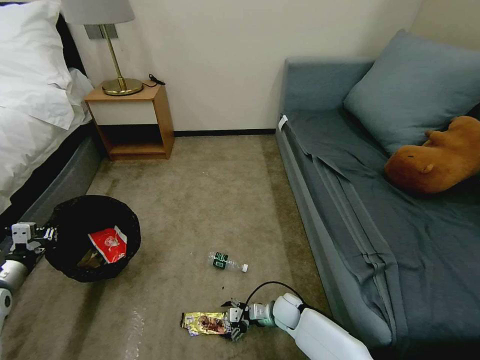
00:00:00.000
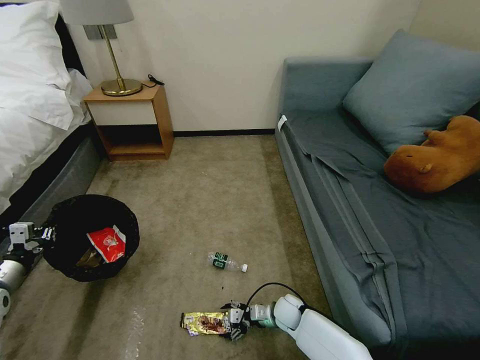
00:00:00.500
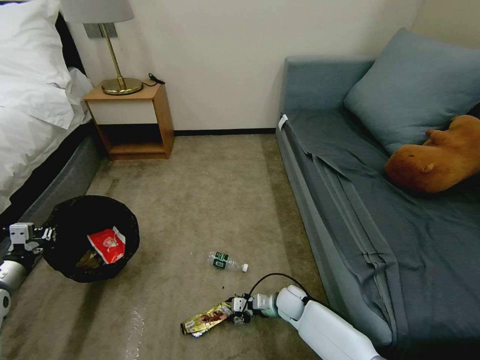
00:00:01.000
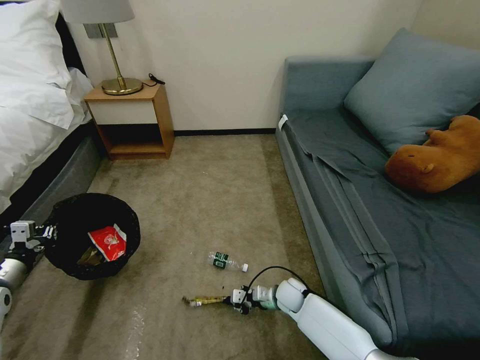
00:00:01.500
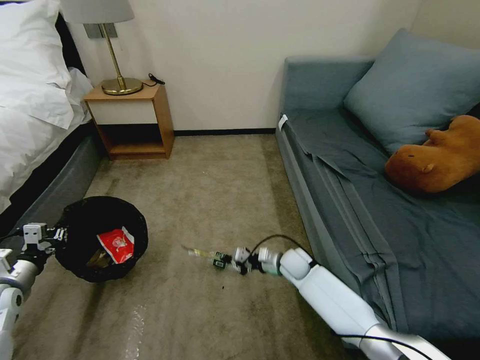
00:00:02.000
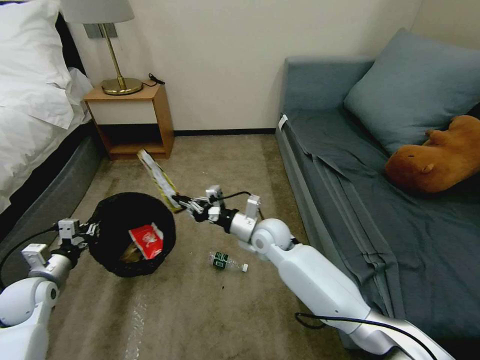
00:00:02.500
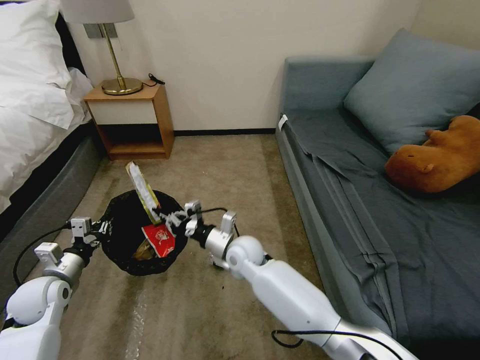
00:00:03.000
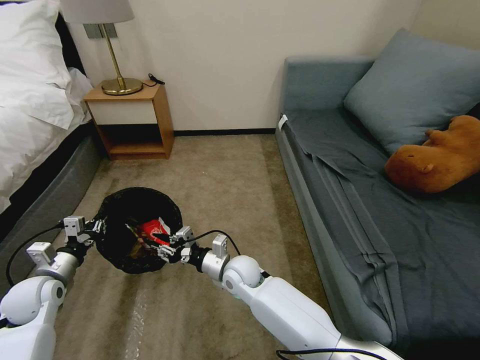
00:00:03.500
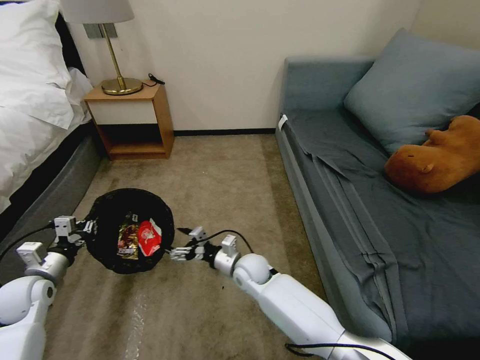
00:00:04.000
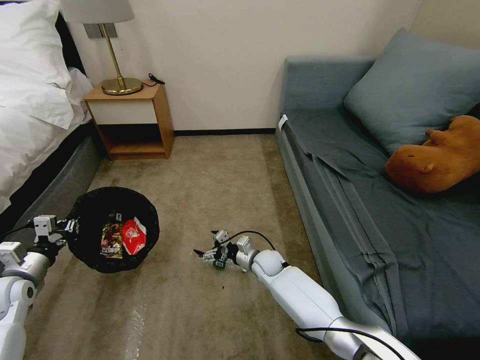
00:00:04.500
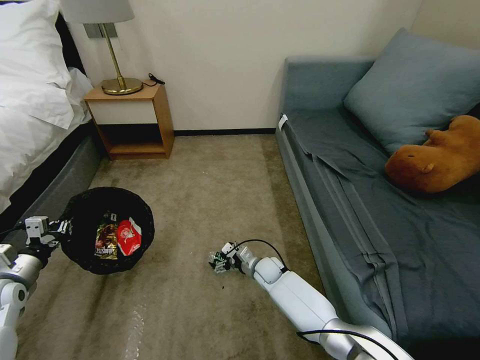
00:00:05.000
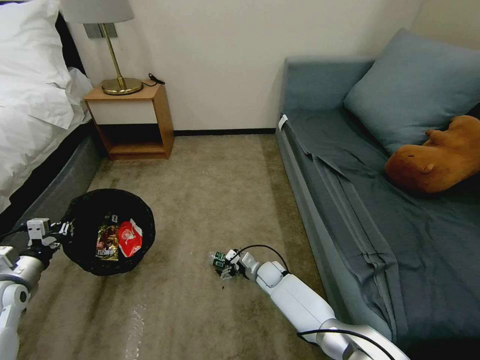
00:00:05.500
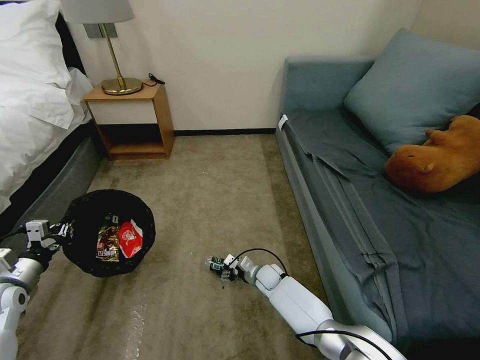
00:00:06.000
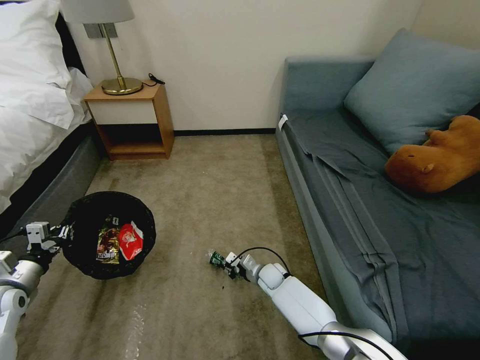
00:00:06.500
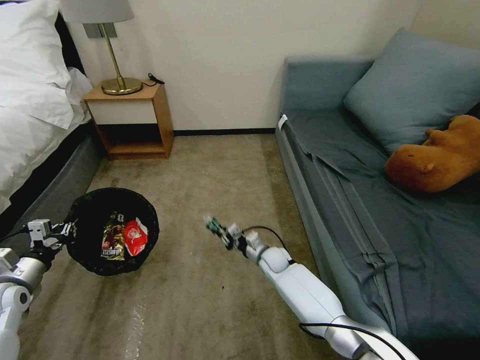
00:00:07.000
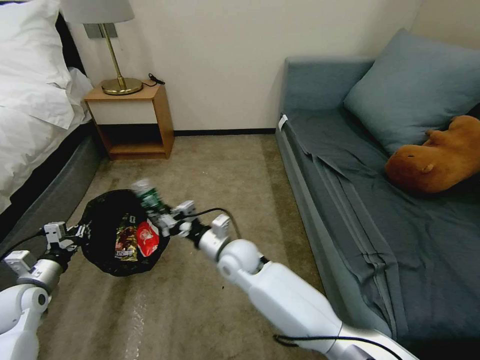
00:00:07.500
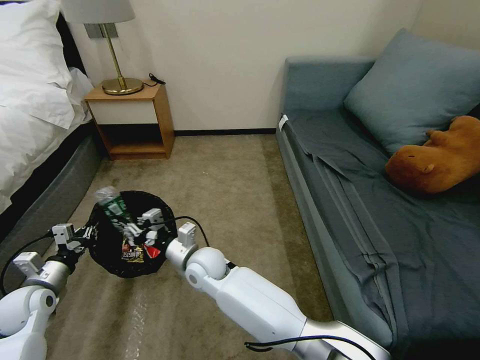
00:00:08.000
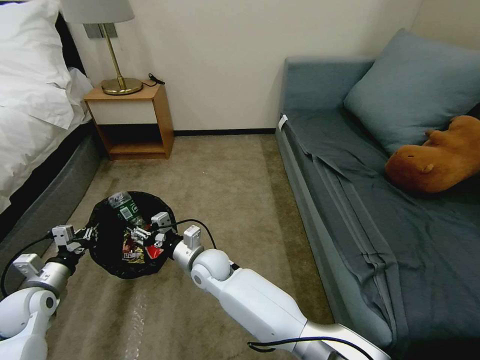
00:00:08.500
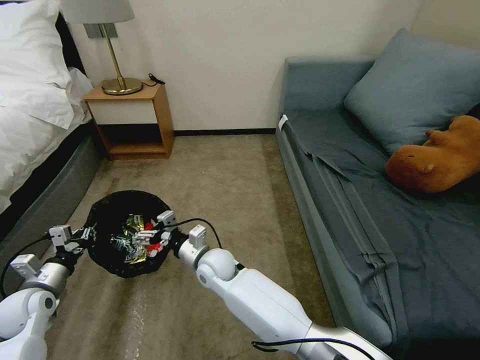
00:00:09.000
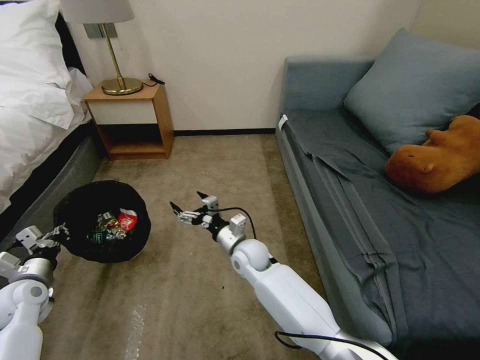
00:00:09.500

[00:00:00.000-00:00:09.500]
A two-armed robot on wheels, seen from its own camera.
Task of the whole recording: Pick up the trash bin, then pick up the garbage on the floor and place it into the trash bin.
00:00:00.000 to 00:00:02.000: The right gripper goes roughly 15 cm forward and upward, and closes.
00:00:02.000 to 00:00:04.000: The right gripper is displaced to the left by approximately 15 cm, and opens.
00:00:04.000 to 00:00:05.500: The right gripper shifts roughly 15 cm downward and to the right.
00:00:05.500 to 00:00:07.500: The right gripper is displaced upward and to the left by roughly 25 cm, and closes.
00:00:07.500 to 00:00:09.500: The right gripper reaches about 10 cm to the left, then returns, and opens its fingers.

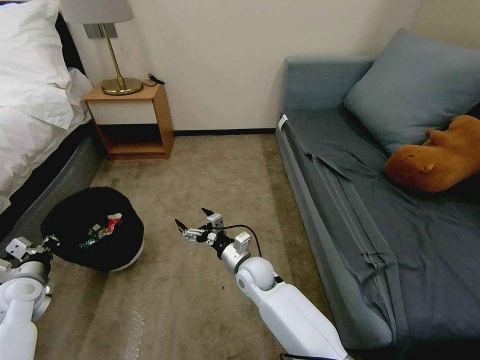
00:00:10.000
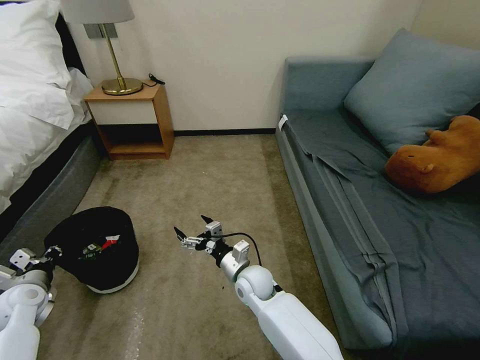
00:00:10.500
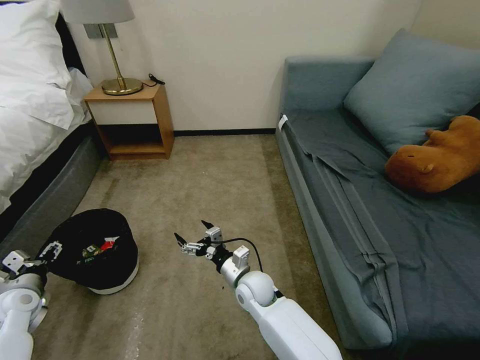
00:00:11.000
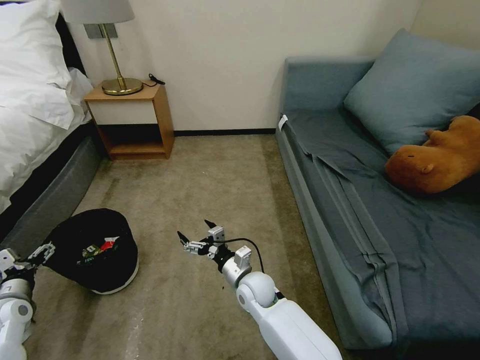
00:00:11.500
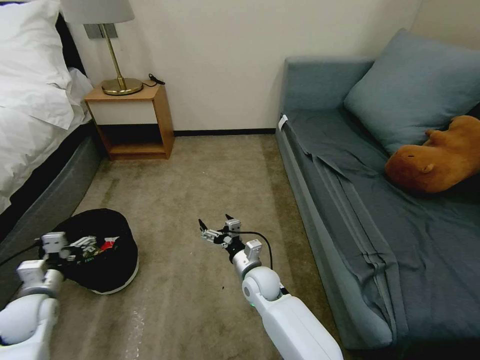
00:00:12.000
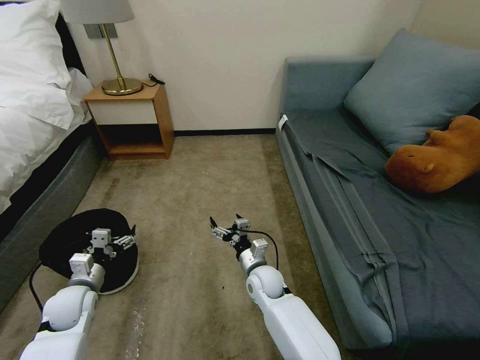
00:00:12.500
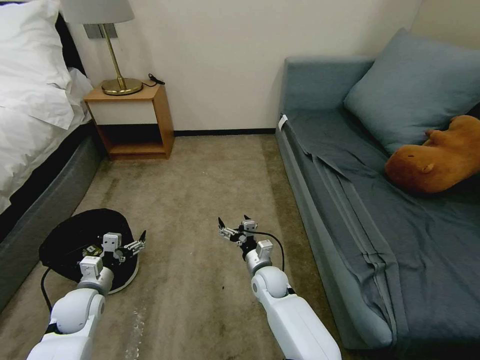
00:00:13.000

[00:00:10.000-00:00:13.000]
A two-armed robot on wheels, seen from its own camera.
Task of the whole recording: Pick up the trash bin, then pick up the garbage on the floor and place it into the trash bin.
00:00:10.000 to 00:00:11.500: The left gripper opens.
00:00:11.500 to 00:00:13.000: The left gripper goes about 15 cm to the right, while the right gripper changes place by about 5 cm.

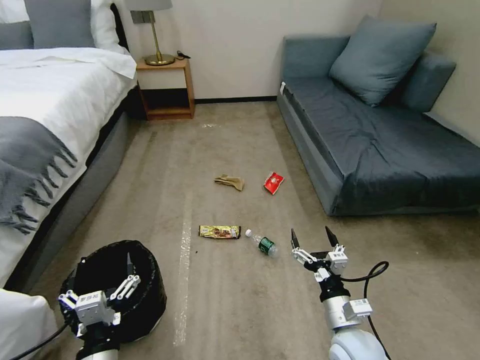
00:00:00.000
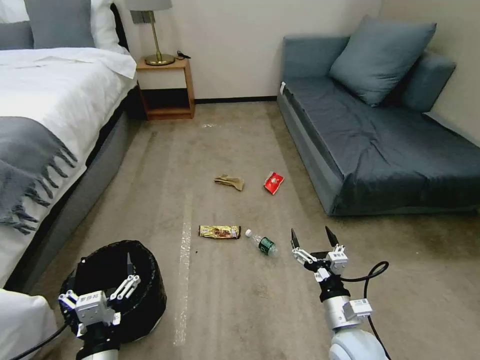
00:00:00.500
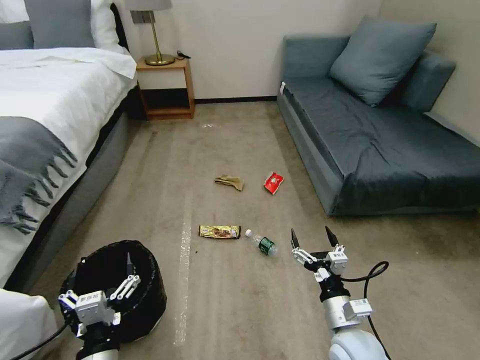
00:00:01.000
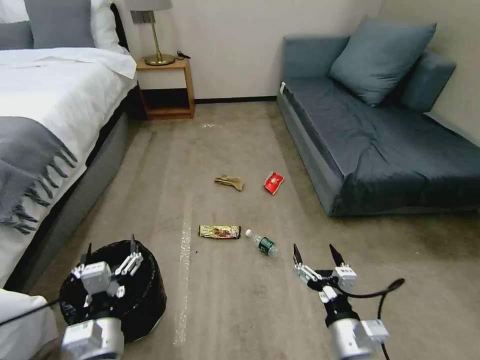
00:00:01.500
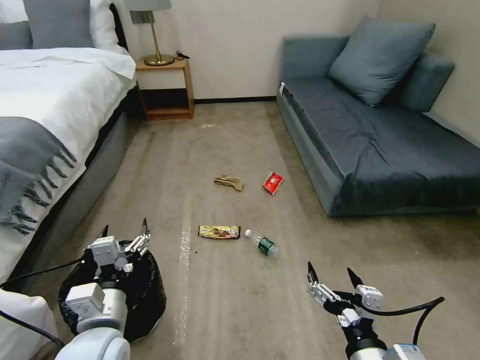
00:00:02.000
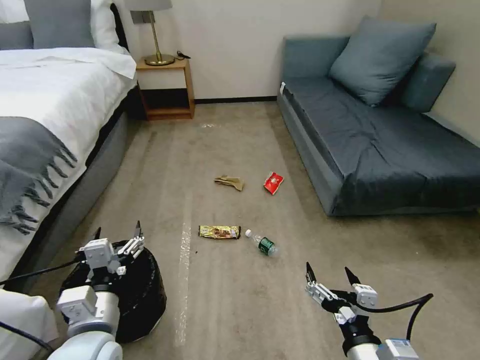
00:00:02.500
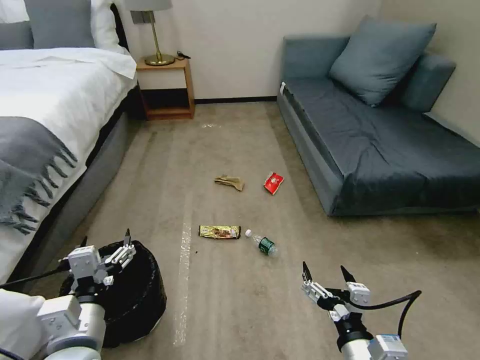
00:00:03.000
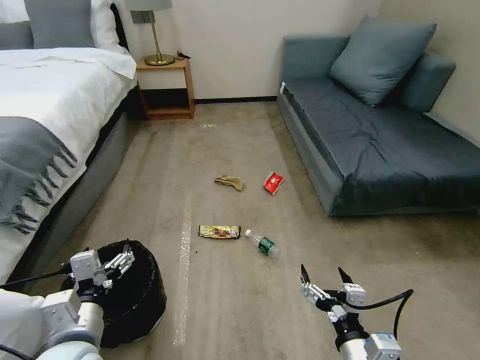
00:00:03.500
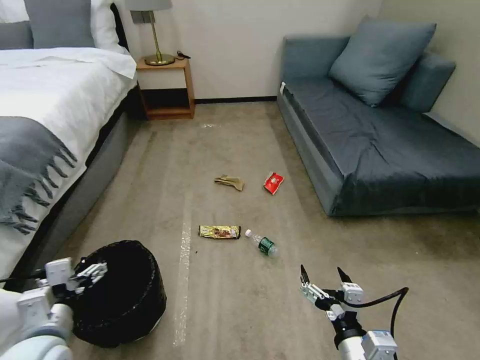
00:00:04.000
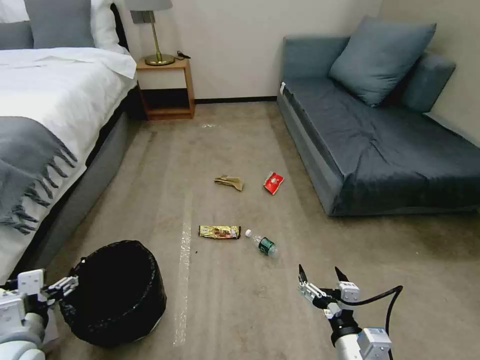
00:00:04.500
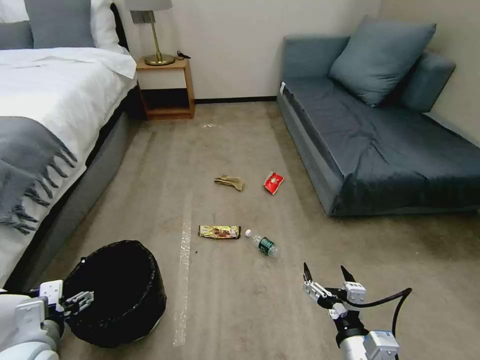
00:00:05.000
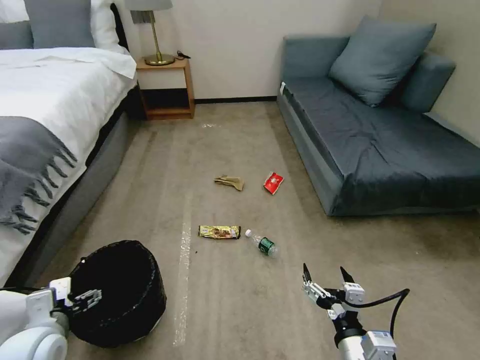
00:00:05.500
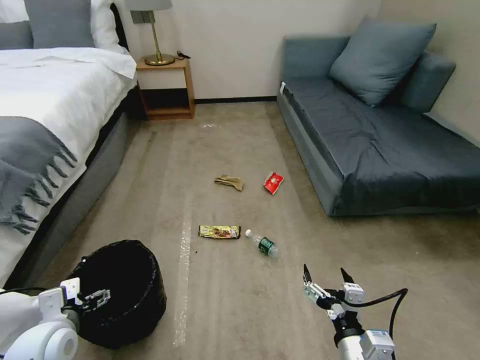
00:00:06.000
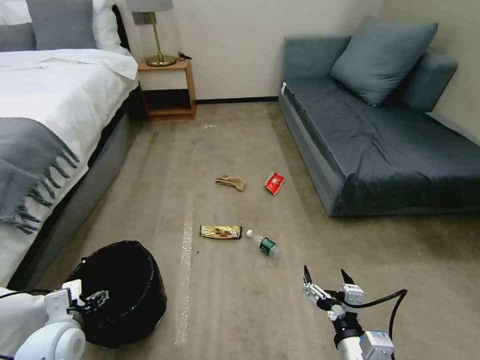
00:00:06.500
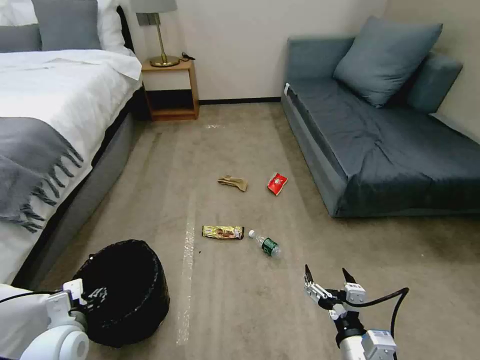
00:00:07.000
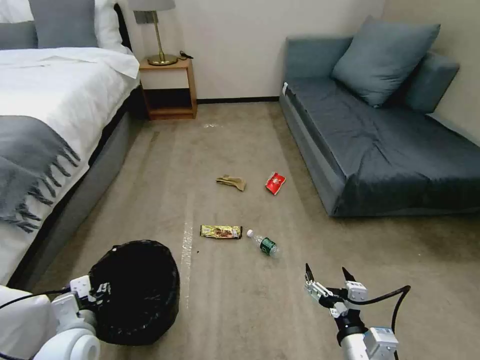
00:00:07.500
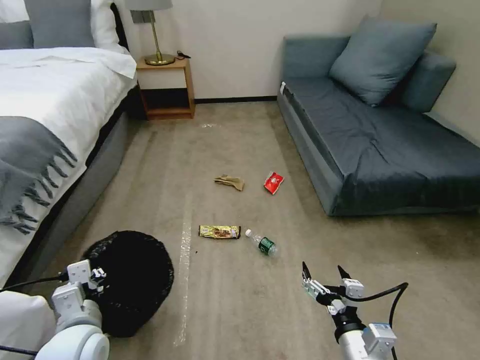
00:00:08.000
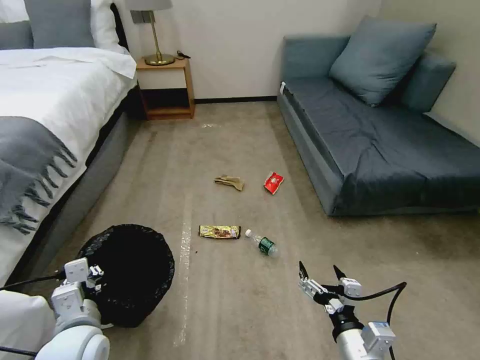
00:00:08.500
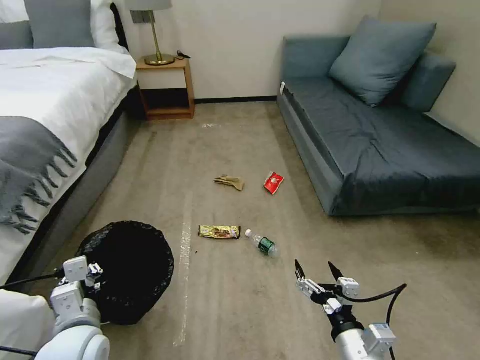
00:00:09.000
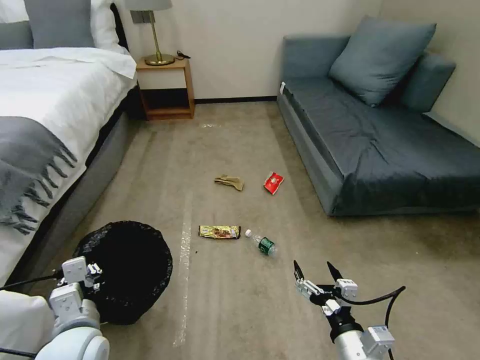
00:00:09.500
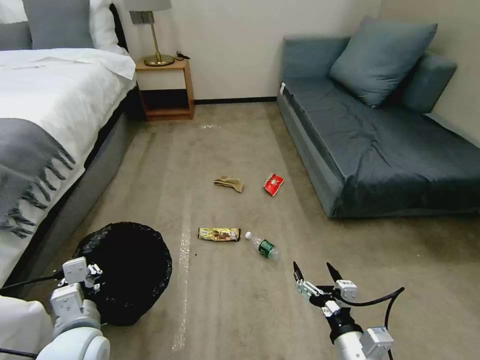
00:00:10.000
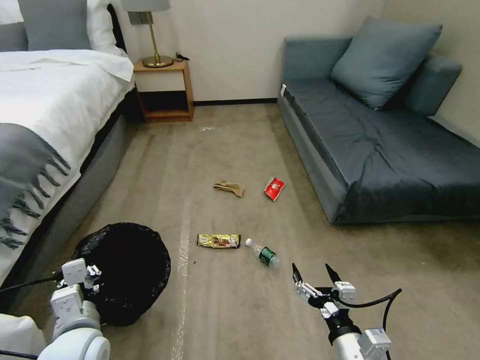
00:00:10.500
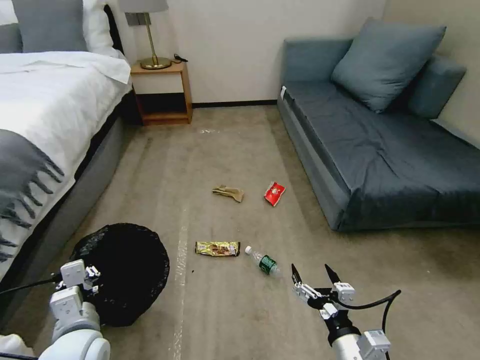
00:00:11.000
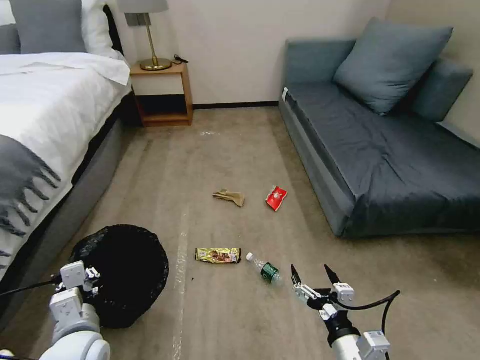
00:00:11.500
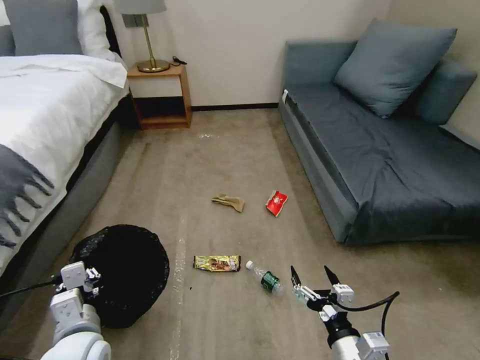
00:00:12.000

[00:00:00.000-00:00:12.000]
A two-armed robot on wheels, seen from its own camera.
Task of the whole recording: Pick up the trash bin, then pick up the garbage on the floor and place it into the trash bin.
00:00:02.000 to 00:00:04.000: The right gripper heads downward, covering about 5 cm. The left gripper is displaced to the left by some 10 cm.
00:00:04.000 to 00:00:06.000: The left gripper changes place by roughly 5 cm.
00:00:06.000 to 00:00:08.000: The left gripper heads to the right, covering about 10 cm, and closes.
00:00:08.000 to 00:00:10.000: The grippers move only a little.

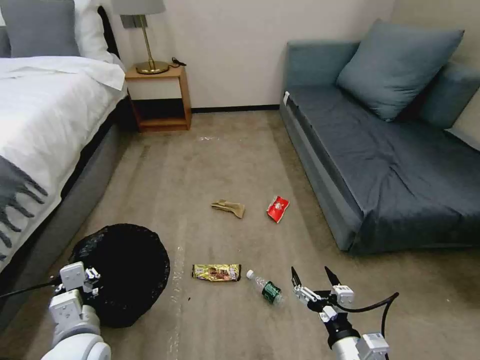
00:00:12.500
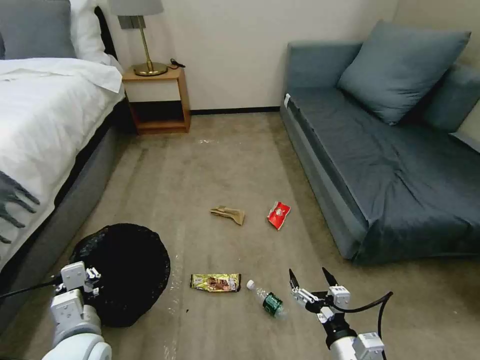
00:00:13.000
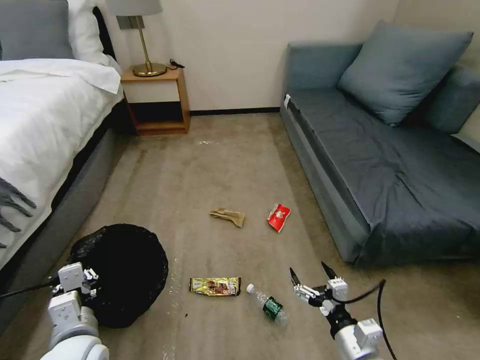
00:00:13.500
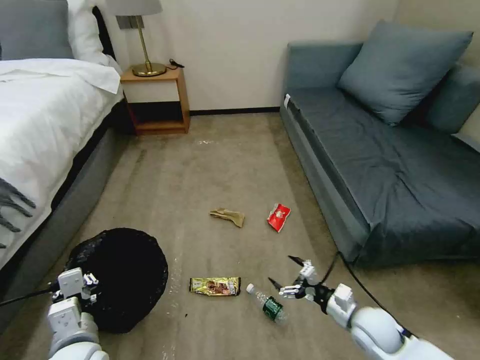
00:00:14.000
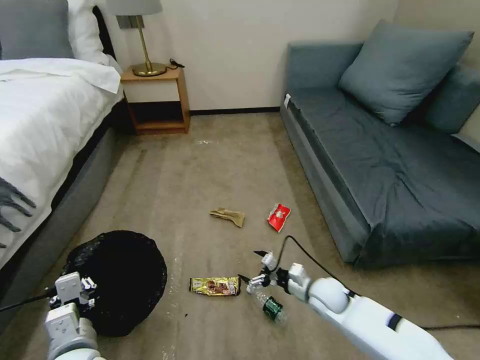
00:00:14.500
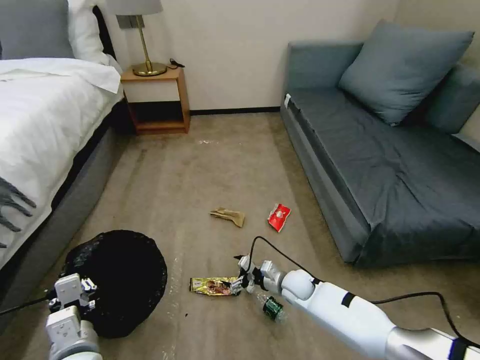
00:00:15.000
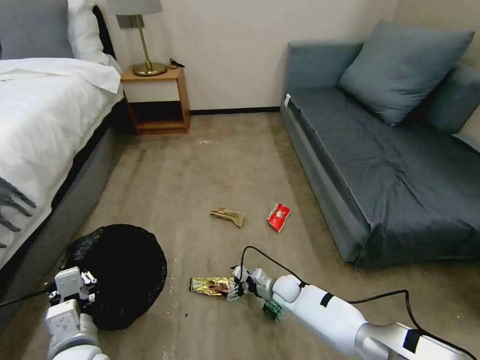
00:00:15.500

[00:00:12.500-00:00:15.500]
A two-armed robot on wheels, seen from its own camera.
Task of the whole recording: Pick up the trash bin, then pick up the garbage on the floor and place it into the trash bin.
00:00:12.500 to 00:00:14.000: The right gripper heads forward, to the right and downward, covering approximately 15 cm.
00:00:14.000 to 00:00:15.500: The right gripper goes roughly 25 cm to the left, forward and downward.
